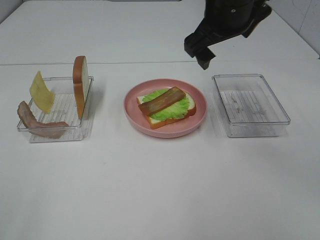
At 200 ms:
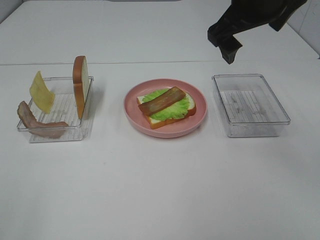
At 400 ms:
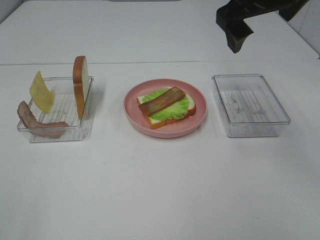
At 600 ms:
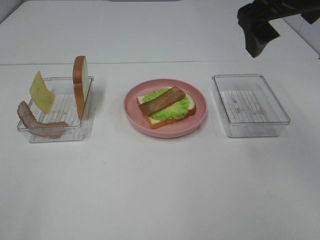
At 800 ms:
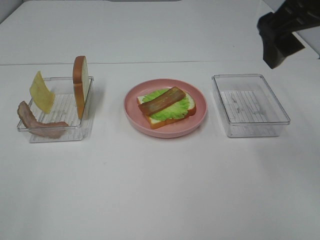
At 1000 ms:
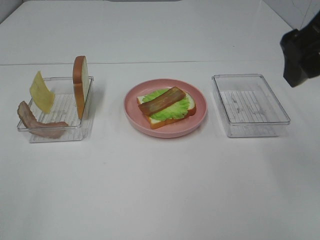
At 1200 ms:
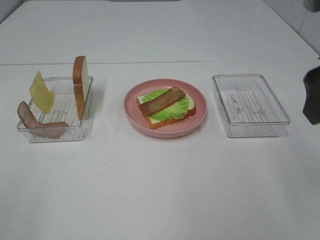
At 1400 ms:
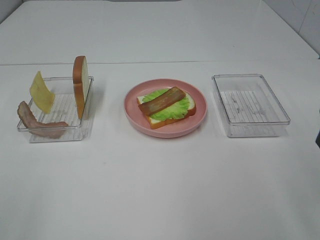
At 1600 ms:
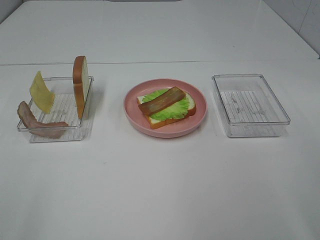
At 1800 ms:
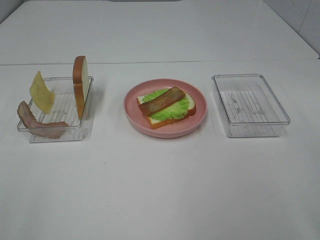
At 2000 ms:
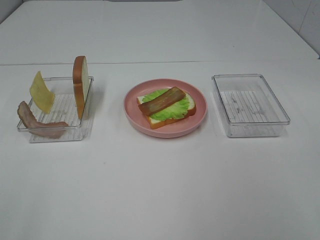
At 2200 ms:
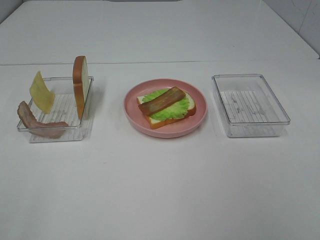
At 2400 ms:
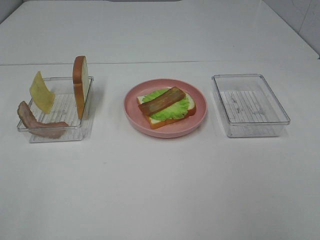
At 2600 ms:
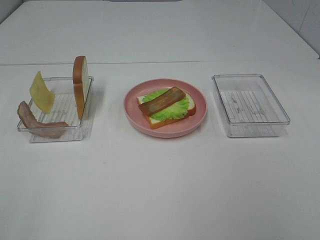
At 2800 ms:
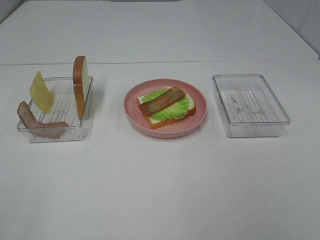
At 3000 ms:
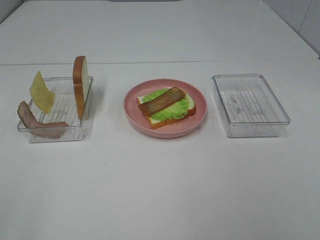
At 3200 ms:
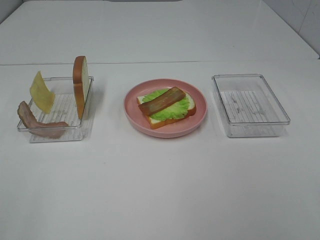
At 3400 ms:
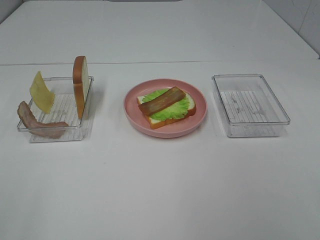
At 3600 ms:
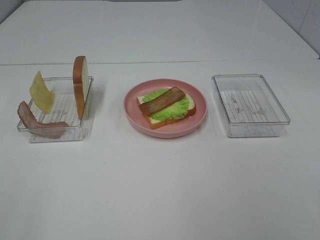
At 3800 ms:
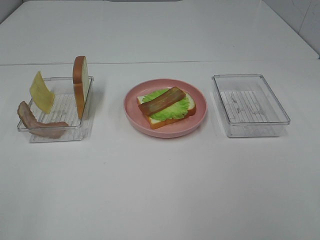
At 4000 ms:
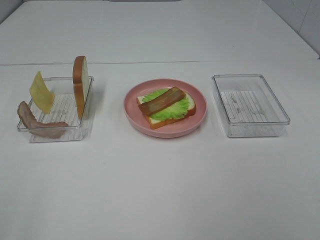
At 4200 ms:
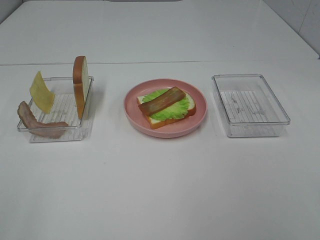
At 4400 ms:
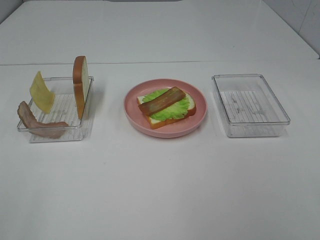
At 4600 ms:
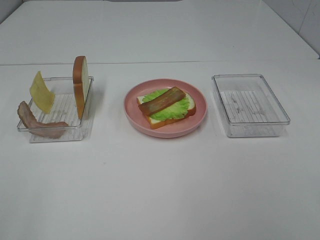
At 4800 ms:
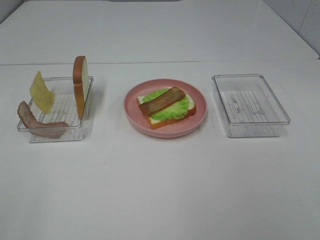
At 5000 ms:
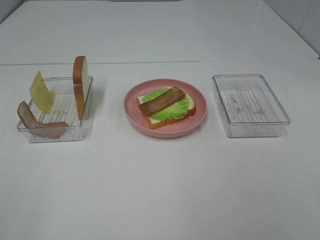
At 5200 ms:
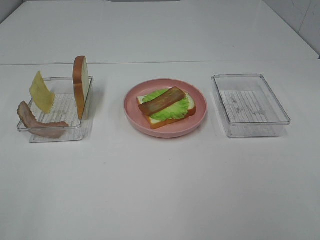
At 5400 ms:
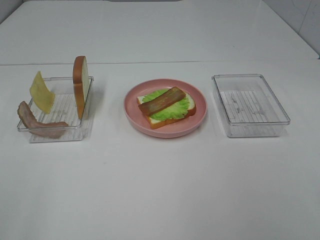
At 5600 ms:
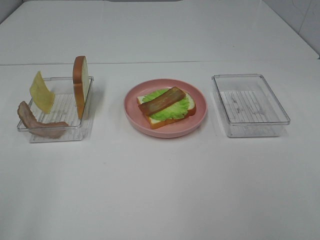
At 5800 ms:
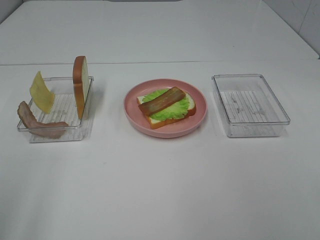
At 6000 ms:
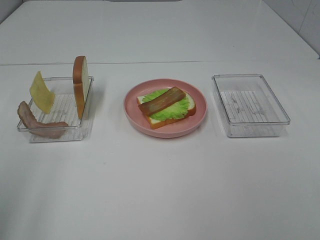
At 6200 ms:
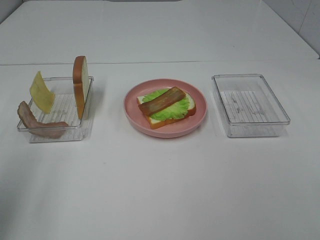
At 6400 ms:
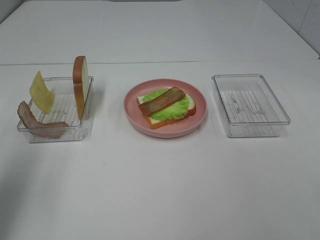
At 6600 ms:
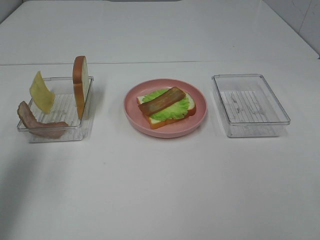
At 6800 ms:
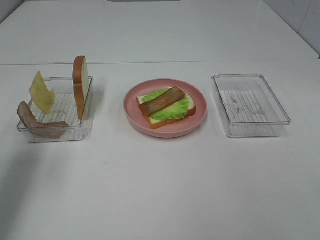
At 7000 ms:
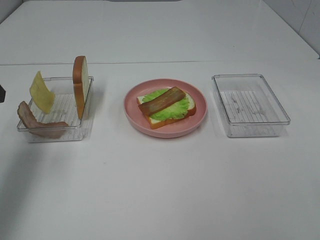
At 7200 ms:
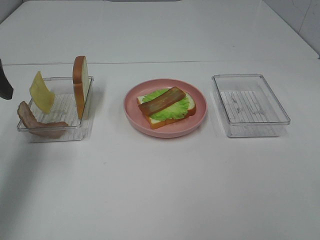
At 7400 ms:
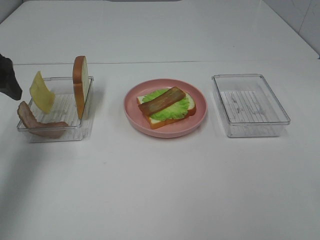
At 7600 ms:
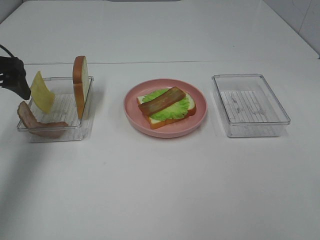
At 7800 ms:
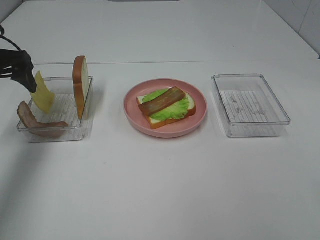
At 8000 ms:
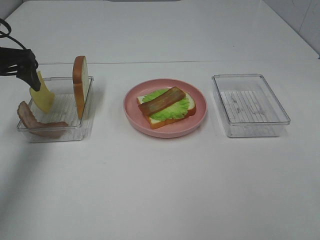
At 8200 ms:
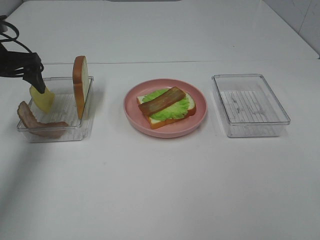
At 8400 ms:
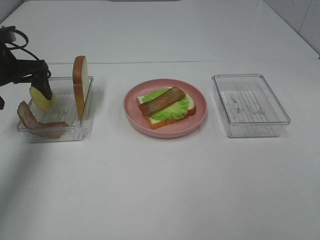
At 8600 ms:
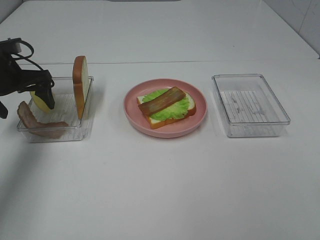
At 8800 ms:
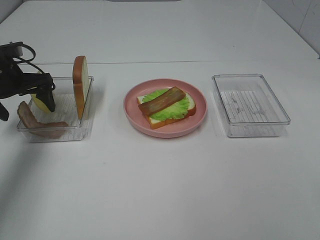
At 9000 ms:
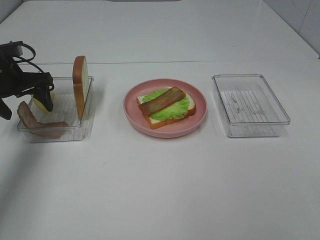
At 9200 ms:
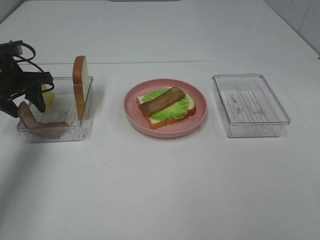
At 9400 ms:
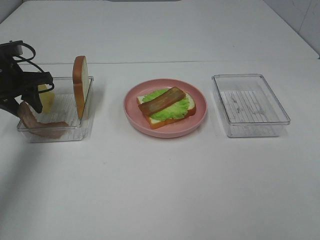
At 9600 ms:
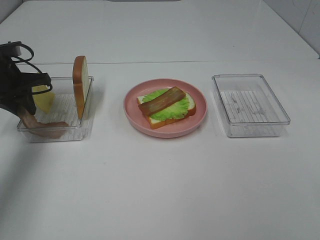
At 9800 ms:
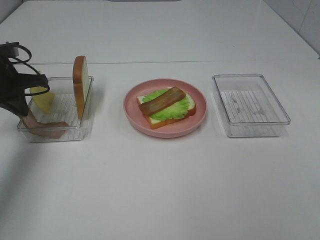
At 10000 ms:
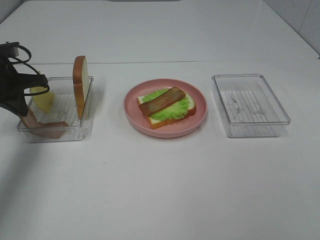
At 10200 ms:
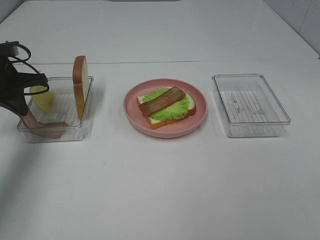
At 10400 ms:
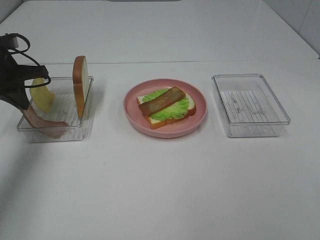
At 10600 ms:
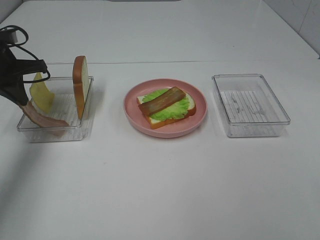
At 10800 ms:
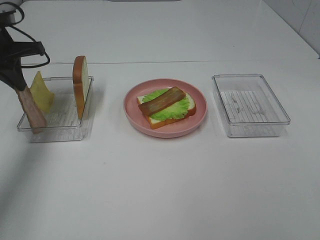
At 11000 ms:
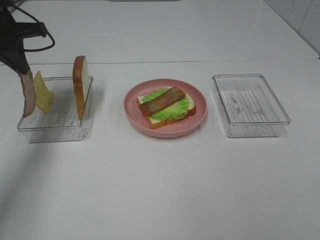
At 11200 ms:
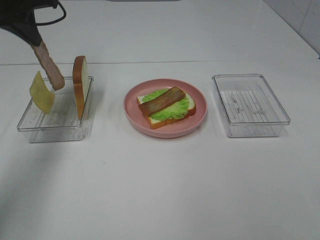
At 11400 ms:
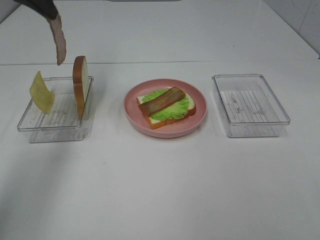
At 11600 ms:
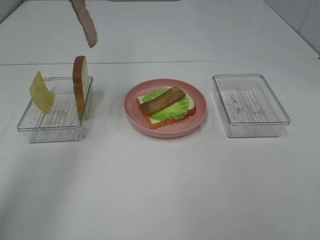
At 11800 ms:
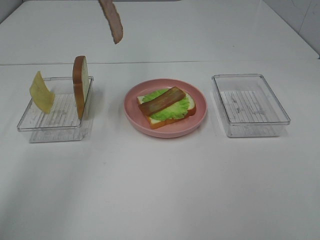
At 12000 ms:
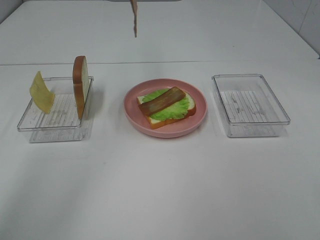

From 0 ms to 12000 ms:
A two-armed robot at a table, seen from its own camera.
Task of the whole recording: Make sandwiches.
Step, from 0 ms to 10200 ms: Left hand:grab the bacon.
From 0 ms to 1600 ms: The right gripper heads backward and to the right, covering approximately 25 cm.
From 3000 ms to 4400 ms: Neither gripper changes place.
From 6000 ms to 7600 ms: The left gripper travels forward by roughly 25 cm.
From 7600 ms to 9000 ms: The left gripper travels downward and forward by some 10 cm.
From 9000 ms to 10400 ms: The left gripper closes up.
From 10400 ms to 12000 ms: The left gripper goes some 30 cm upward and to the right.

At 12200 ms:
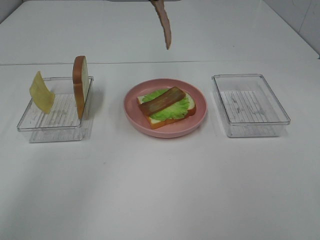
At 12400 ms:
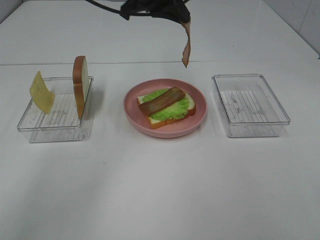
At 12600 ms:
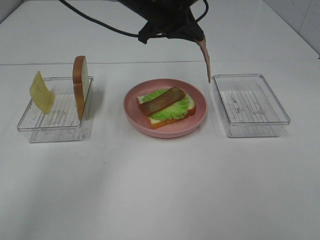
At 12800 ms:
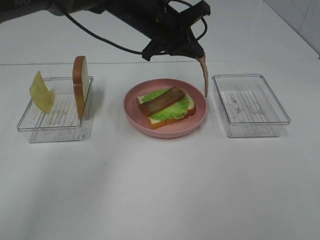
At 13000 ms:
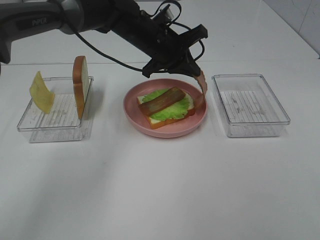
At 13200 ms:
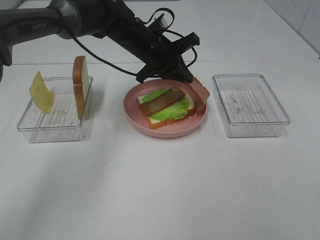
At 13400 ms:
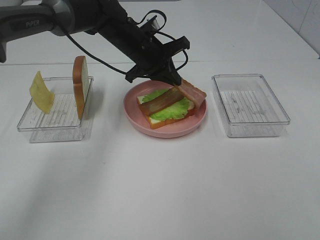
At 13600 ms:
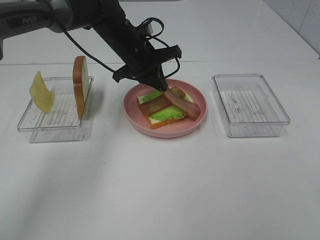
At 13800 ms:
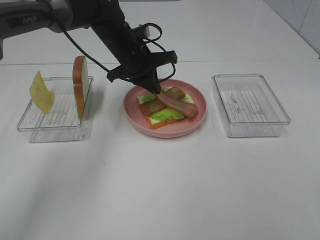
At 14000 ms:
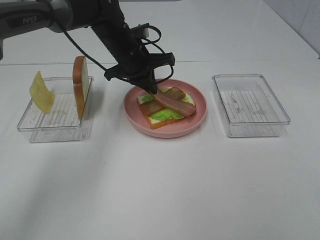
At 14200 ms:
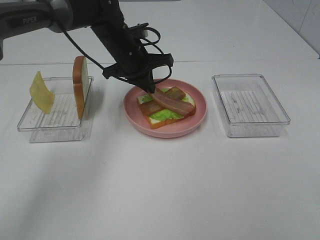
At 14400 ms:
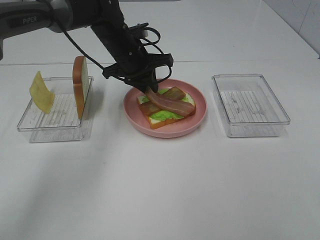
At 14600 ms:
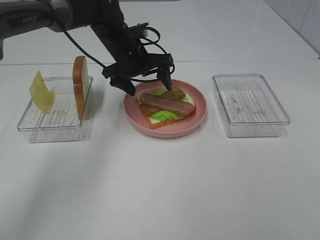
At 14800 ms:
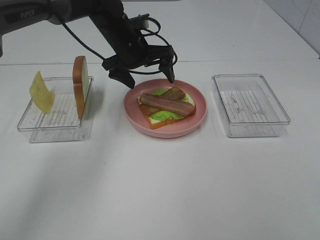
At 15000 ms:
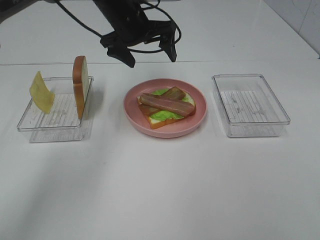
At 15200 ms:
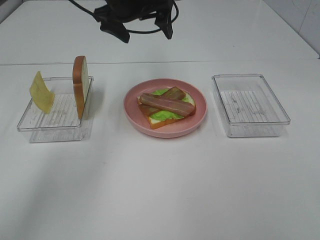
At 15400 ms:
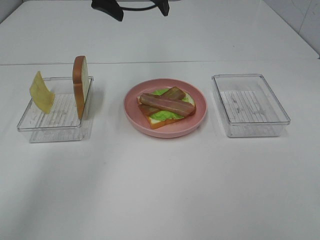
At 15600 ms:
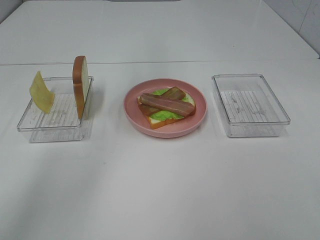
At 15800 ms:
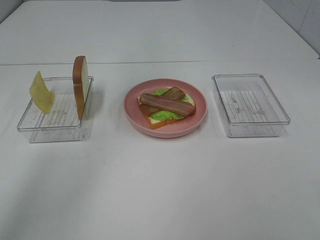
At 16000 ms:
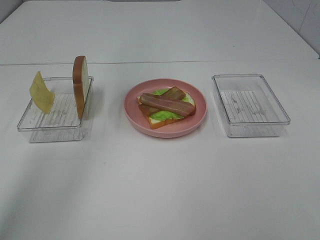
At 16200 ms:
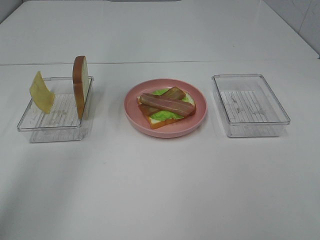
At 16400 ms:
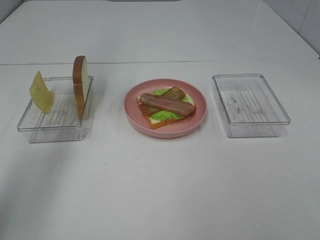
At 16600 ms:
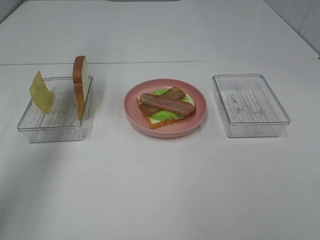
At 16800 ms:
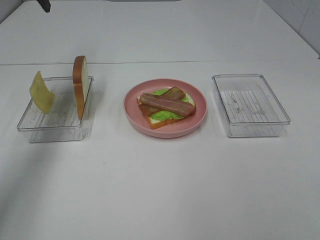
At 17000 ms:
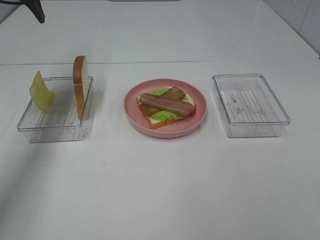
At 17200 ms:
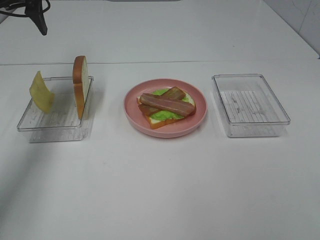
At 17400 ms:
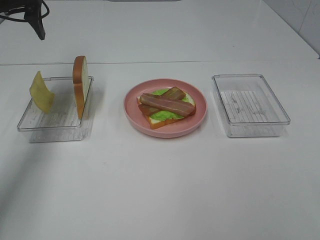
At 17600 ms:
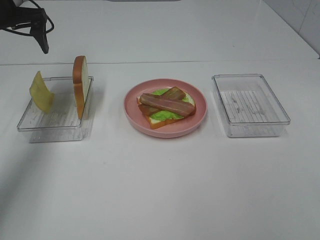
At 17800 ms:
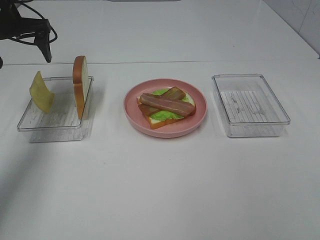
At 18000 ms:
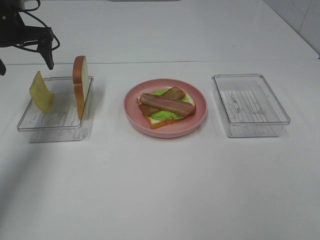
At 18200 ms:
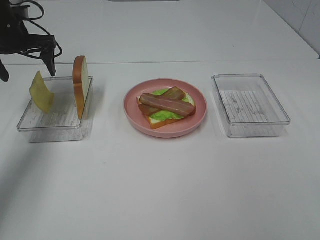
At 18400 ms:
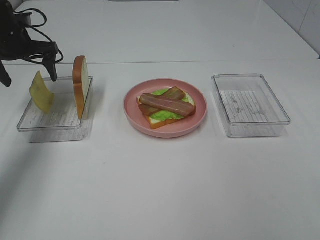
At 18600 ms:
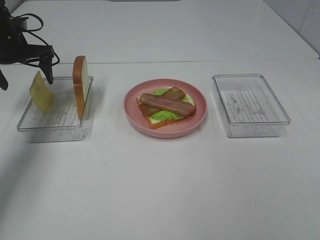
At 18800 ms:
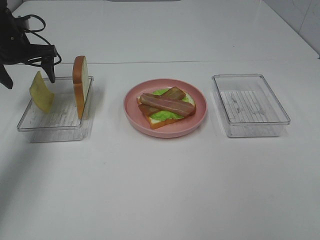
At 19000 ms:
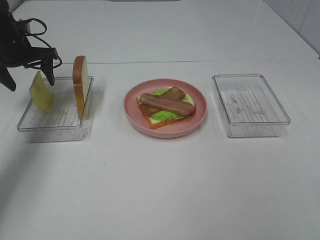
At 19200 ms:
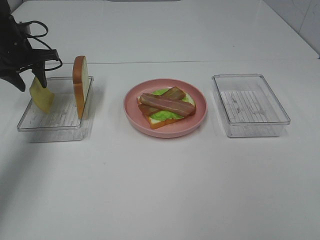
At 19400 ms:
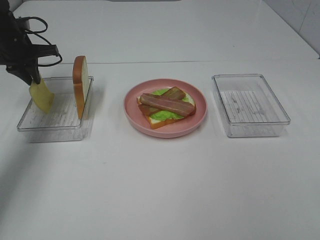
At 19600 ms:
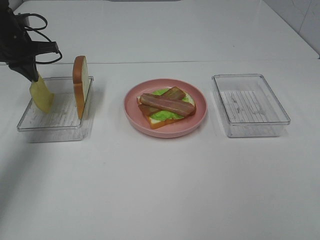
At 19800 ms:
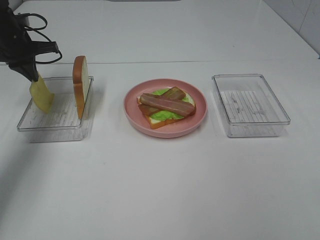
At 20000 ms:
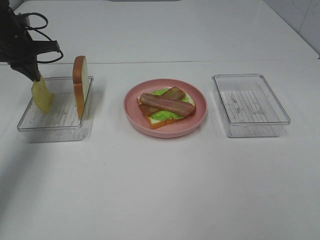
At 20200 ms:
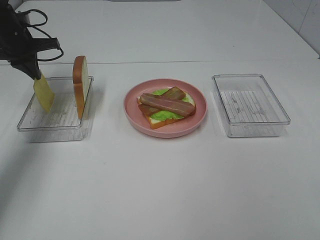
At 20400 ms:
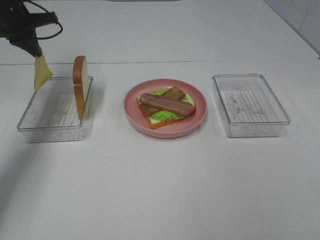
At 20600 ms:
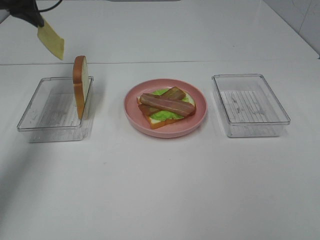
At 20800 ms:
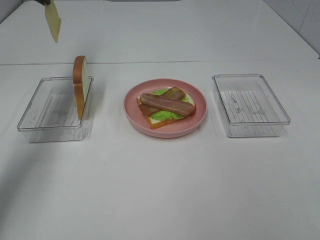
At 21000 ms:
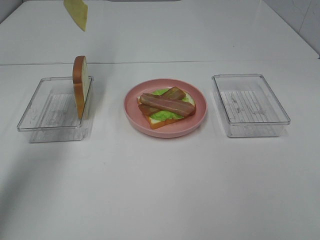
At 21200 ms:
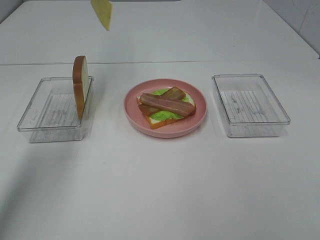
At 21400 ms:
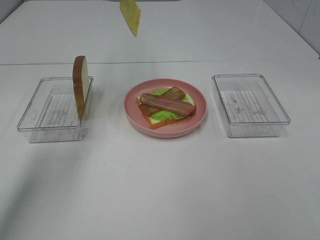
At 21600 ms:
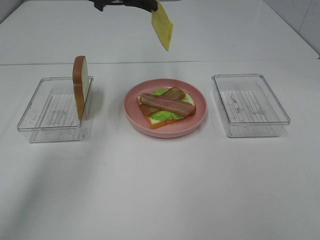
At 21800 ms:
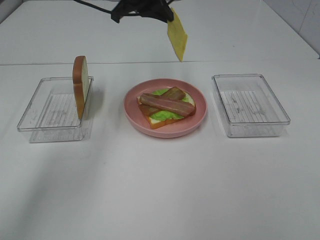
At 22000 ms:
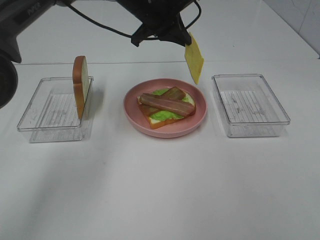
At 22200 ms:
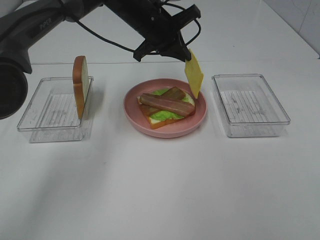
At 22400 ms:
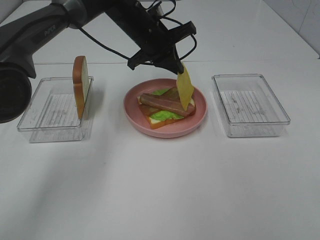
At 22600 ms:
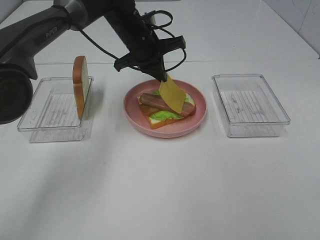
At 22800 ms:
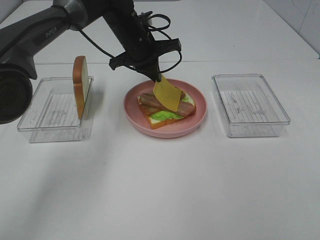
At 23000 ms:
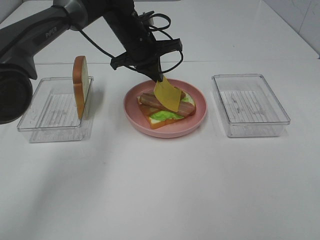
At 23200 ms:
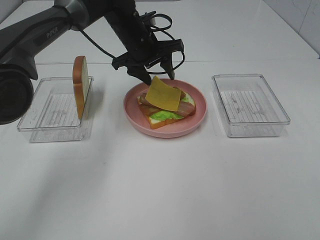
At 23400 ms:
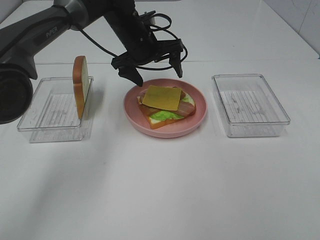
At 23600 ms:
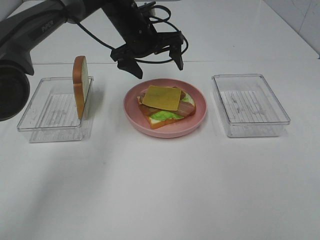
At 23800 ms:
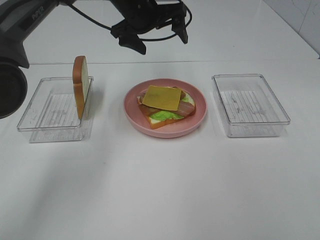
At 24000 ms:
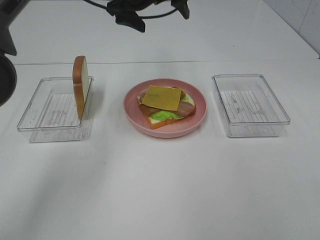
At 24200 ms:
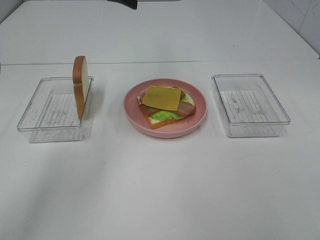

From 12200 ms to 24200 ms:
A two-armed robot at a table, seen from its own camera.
Task of the whole recording: Make sandwiches.
Step, from 12200 ms to 14600 ms: Left hand:place bacon on bacon.
Step, from 14800 ms to 20000 ms: Left hand:grab the cheese slice.
Step, from 20200 ms to 23400 ms: Left hand:place the cheese slice on top of the bacon.
From 12200 ms to 13800 ms: The left gripper goes some 20 cm downward.
From 13800 ms to 15200 ms: The left gripper goes some 10 cm upward, and opens up.
From 15200 ms to 16600 ms: The left gripper shifts roughly 20 cm to the left and upward.
From 16600 ms to 18200 ms: The left gripper heads downward, covering about 15 cm.
From 18200 ms to 19800 ms: The left gripper closes its fingers.
From 19800 ms to 21200 ms: The left gripper moves upward and to the right, roughly 20 cm.
From 21200 ms to 22600 ms: The left gripper shifts approximately 20 cm downward and to the right.
From 22600 ms to 24200 ms: The left gripper goes approximately 15 cm upward, and opens.
